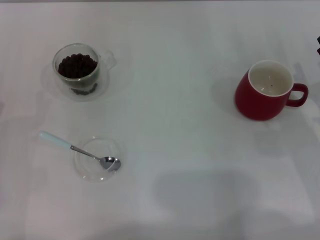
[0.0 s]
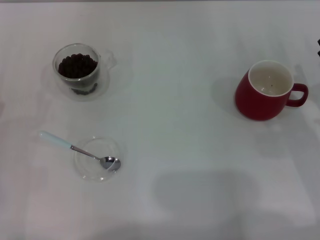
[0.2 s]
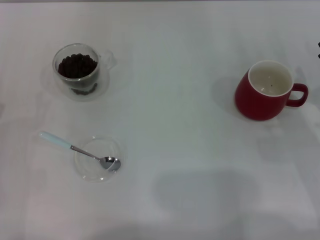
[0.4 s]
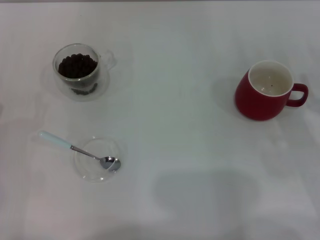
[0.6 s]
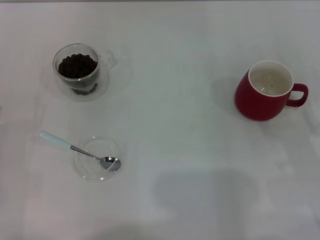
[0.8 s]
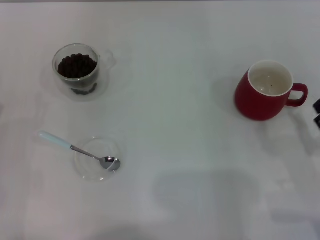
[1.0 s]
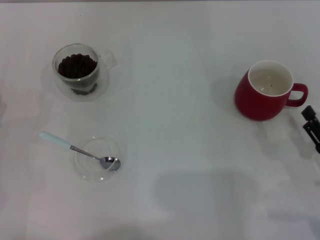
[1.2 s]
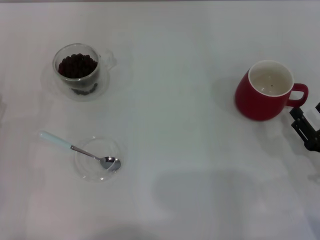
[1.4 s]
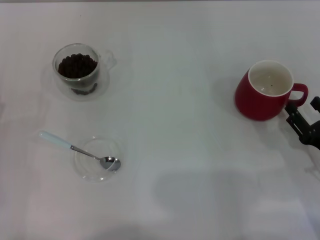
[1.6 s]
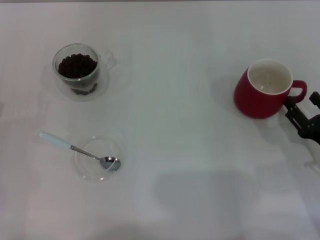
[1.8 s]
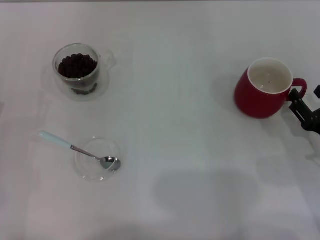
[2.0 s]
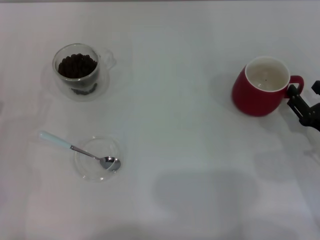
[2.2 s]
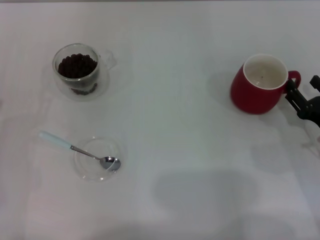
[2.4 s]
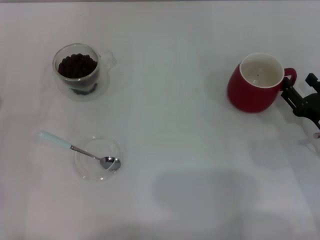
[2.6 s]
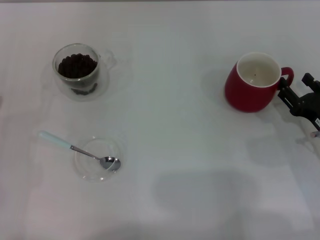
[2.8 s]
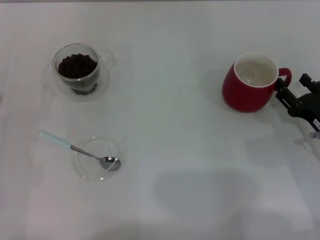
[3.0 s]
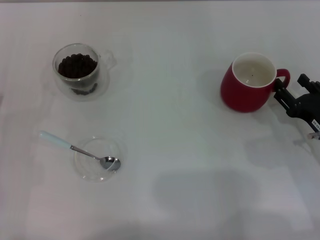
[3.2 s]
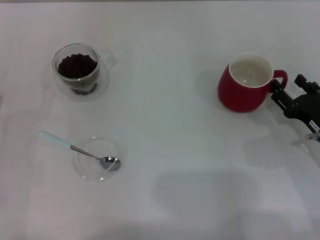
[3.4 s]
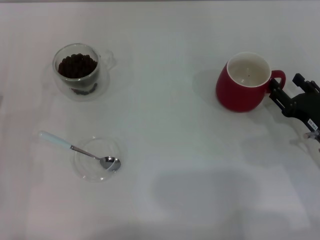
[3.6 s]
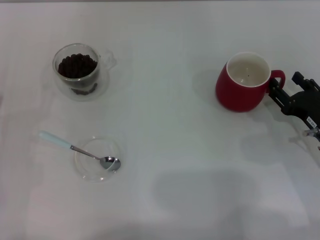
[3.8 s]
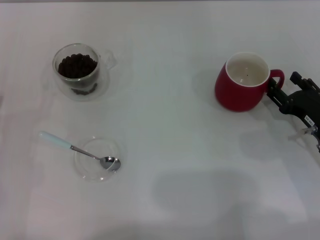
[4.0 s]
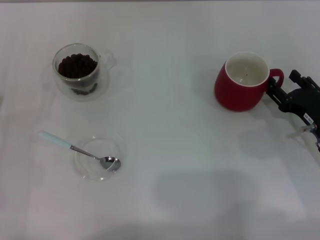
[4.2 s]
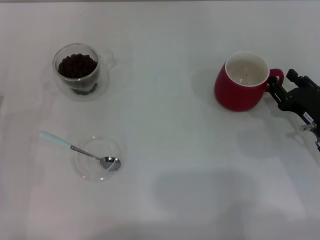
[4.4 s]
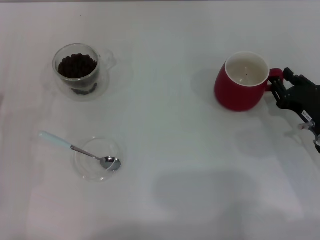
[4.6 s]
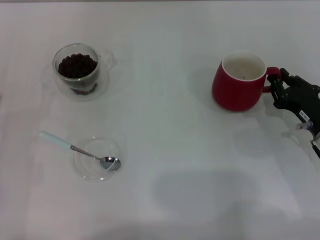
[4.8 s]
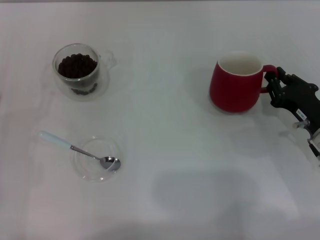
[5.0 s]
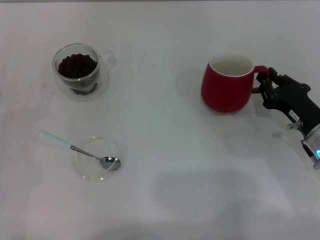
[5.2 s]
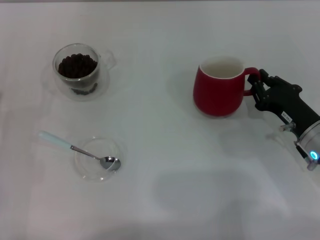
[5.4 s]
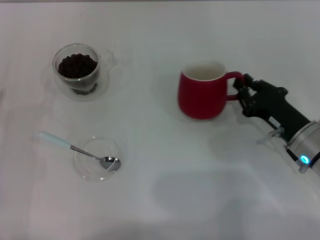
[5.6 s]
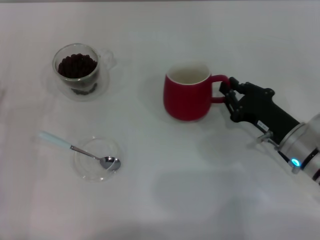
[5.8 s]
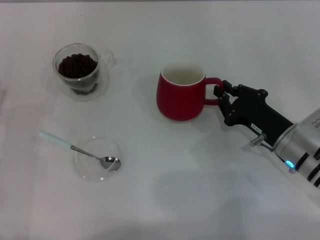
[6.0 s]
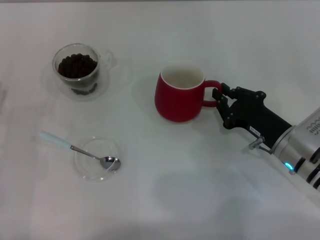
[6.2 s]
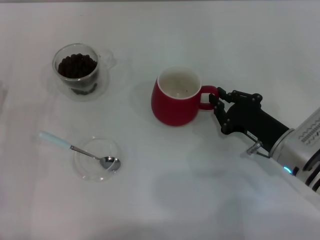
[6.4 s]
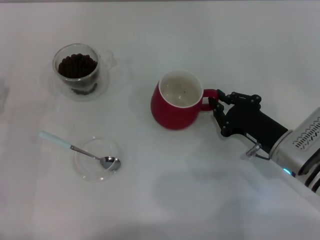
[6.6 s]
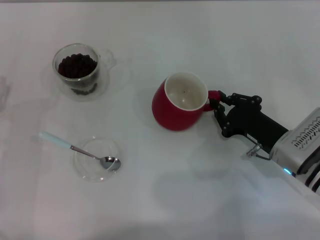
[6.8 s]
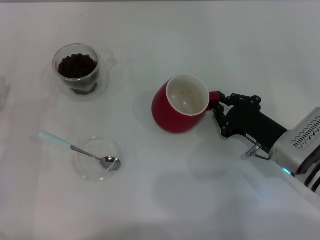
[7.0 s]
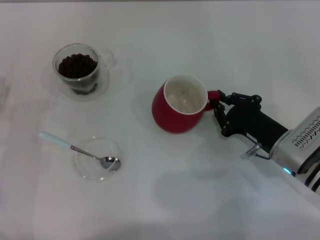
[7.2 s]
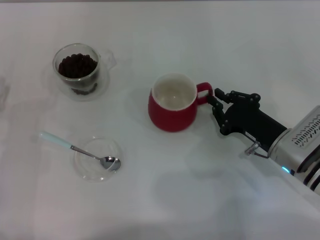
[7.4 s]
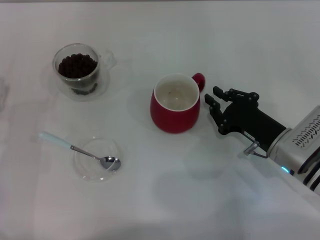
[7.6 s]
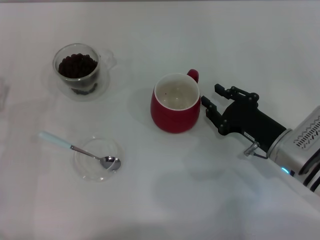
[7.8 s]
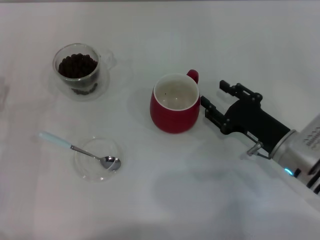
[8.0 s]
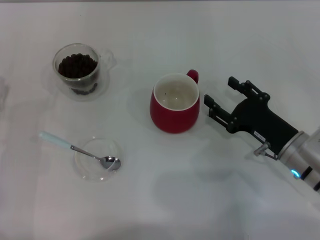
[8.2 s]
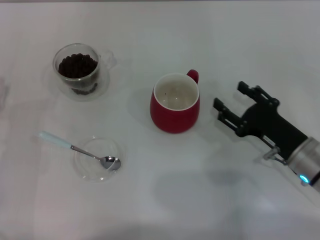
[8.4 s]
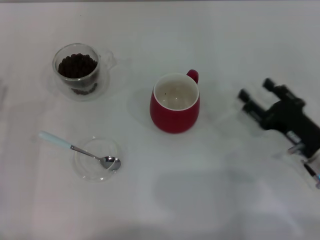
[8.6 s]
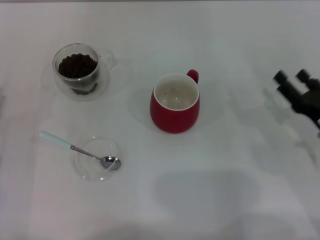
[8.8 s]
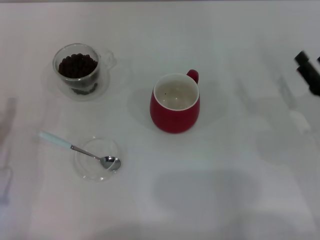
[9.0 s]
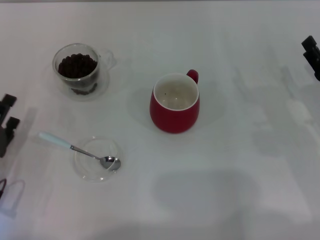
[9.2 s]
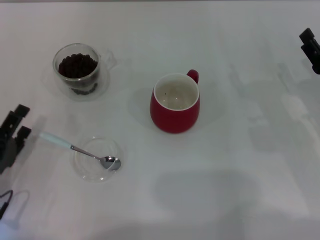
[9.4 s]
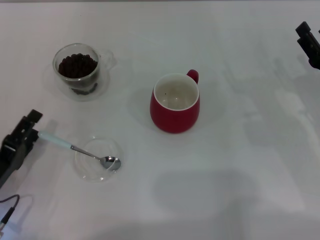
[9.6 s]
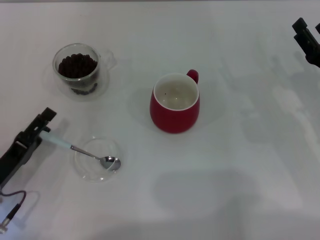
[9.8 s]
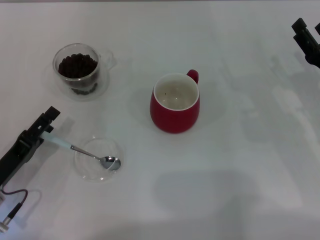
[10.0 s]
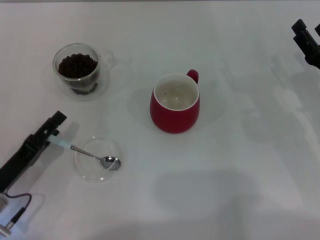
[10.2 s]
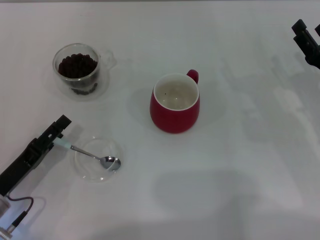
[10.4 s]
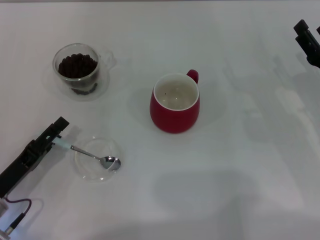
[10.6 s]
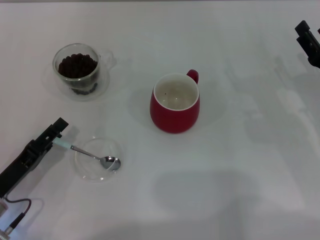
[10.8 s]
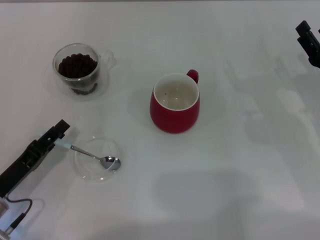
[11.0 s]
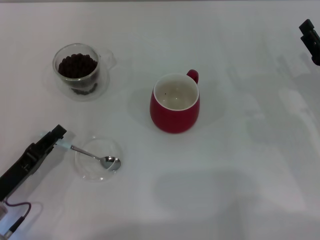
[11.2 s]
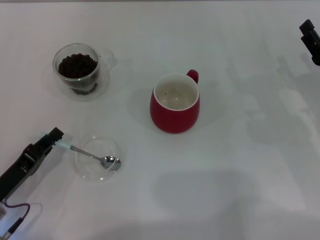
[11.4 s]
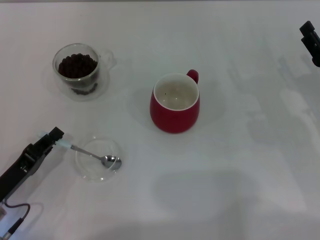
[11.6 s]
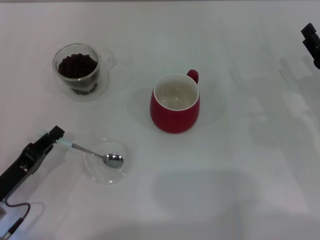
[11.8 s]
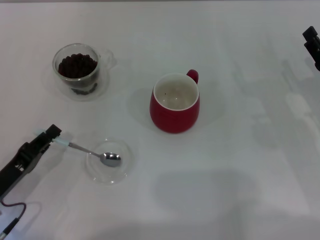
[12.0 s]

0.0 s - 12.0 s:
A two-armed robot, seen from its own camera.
Task of the whole recording: Use a blue spoon to take out the coffee beans from the glass and pour them into the red cup.
Step, 0.0 s - 8.2 s: Move the cup to the center of view with the left gripper.
0.0 s - 1.6 s: The right gripper is displaced backward by roughly 5 cm.
1.6 s - 3.0 s: The right gripper goes approximately 5 cm forward.
3.0 s - 4.4 s: The grippers stay close to where they were, moving slightly.
4.4 s - 6.0 s: The right gripper is displaced to the left by about 5 cm, and closes its fingers.
6.0 s - 7.6 s: There are only small adjustments of the grippers.
7.6 s - 9.0 s: The right gripper moves to the right, roughly 10 cm, and opens.
10.4 s - 12.0 s: The left gripper closes its fingers.

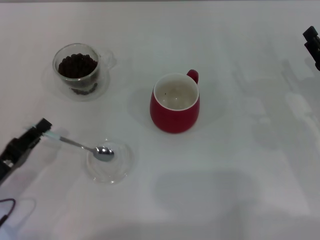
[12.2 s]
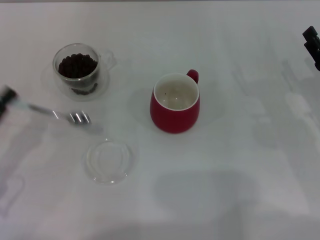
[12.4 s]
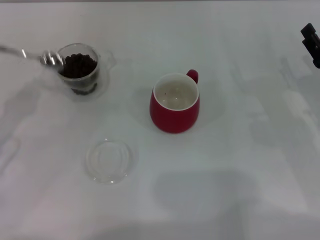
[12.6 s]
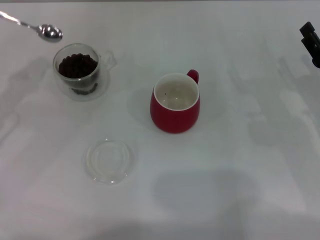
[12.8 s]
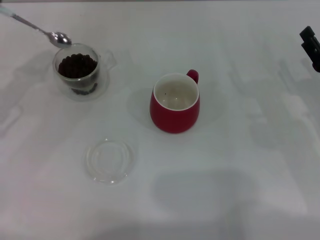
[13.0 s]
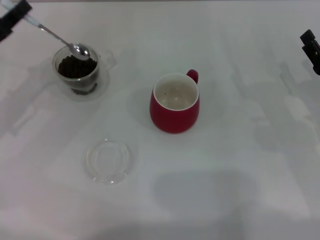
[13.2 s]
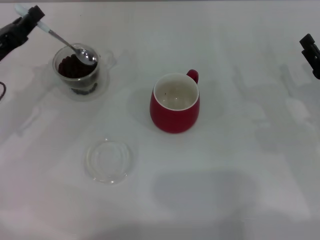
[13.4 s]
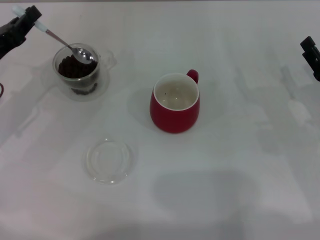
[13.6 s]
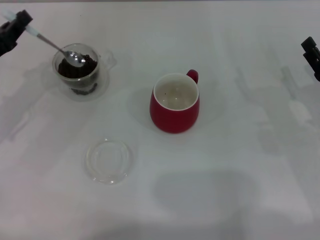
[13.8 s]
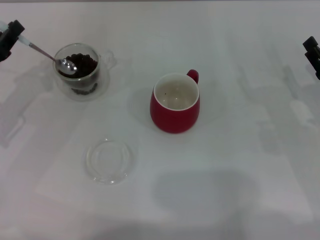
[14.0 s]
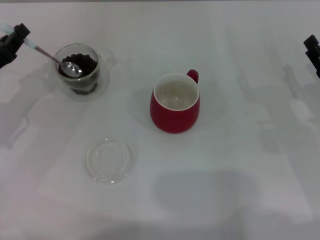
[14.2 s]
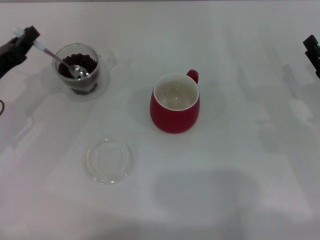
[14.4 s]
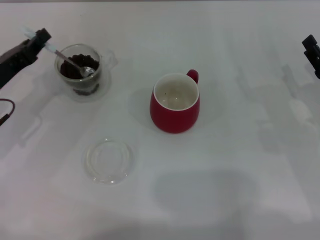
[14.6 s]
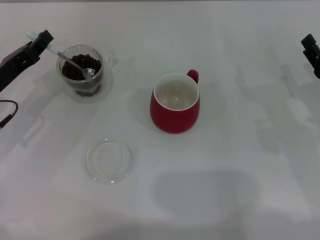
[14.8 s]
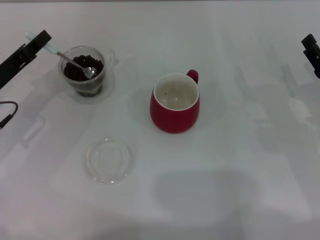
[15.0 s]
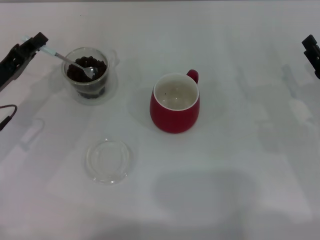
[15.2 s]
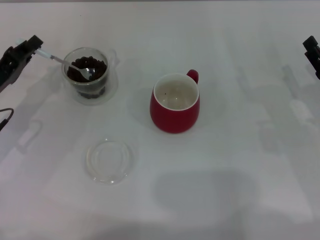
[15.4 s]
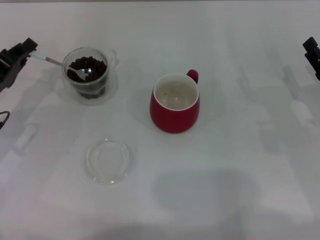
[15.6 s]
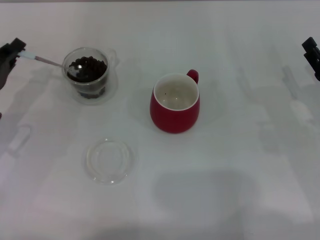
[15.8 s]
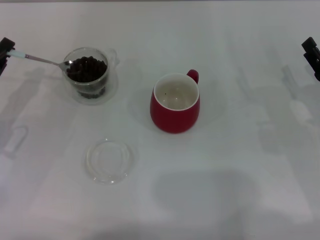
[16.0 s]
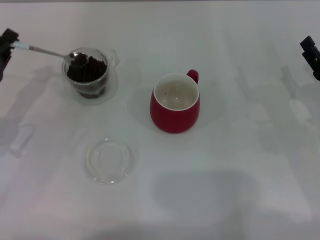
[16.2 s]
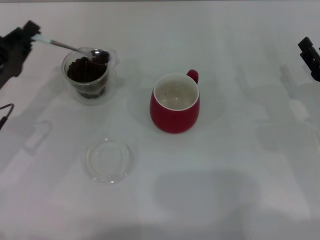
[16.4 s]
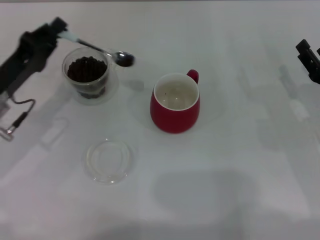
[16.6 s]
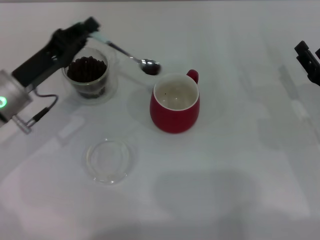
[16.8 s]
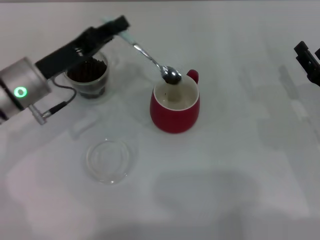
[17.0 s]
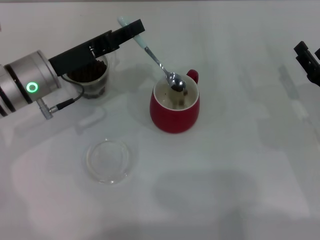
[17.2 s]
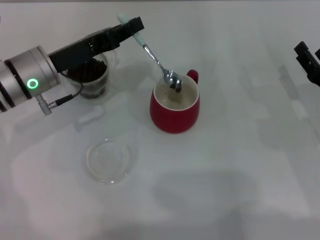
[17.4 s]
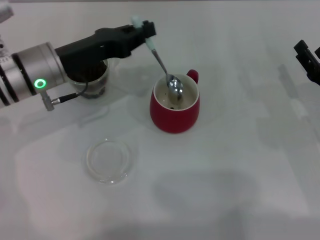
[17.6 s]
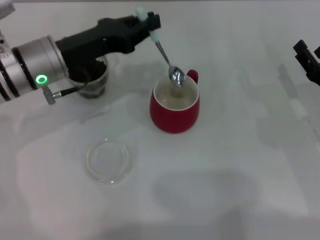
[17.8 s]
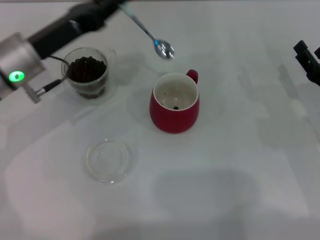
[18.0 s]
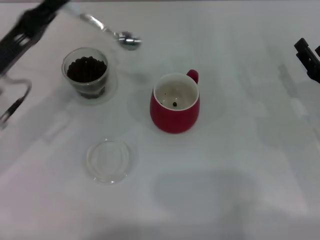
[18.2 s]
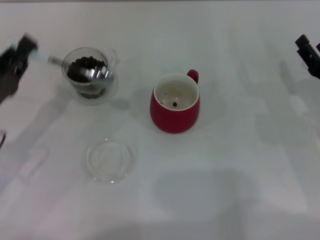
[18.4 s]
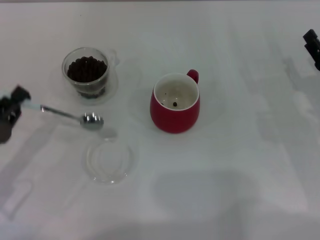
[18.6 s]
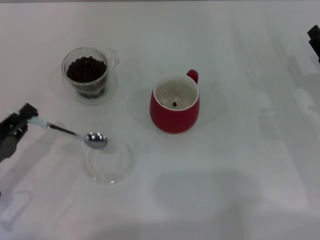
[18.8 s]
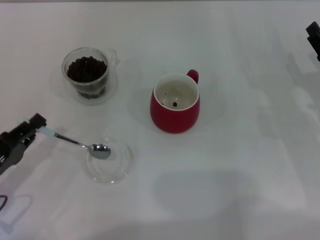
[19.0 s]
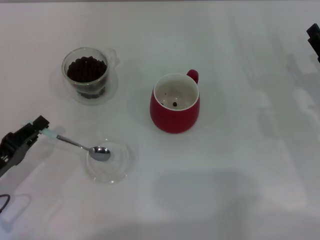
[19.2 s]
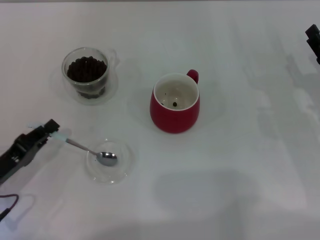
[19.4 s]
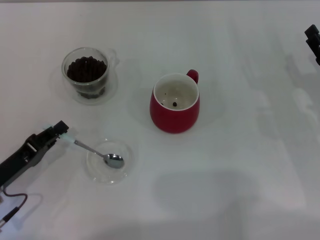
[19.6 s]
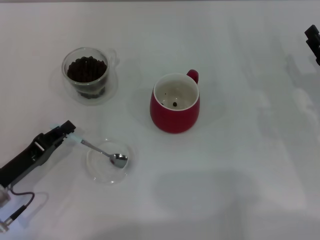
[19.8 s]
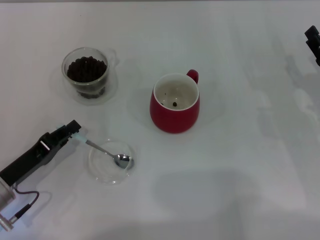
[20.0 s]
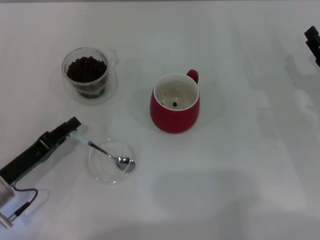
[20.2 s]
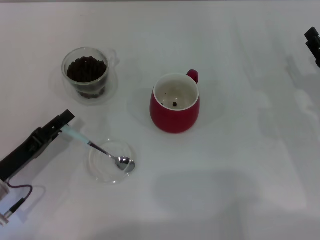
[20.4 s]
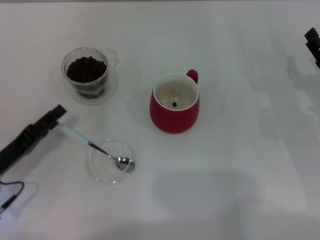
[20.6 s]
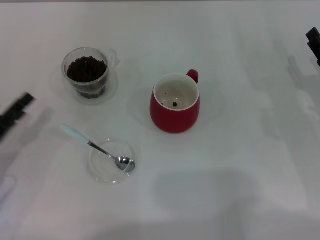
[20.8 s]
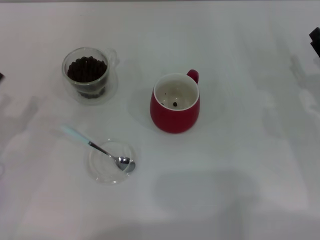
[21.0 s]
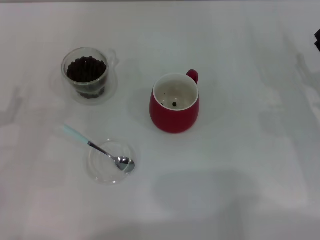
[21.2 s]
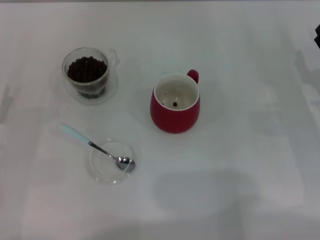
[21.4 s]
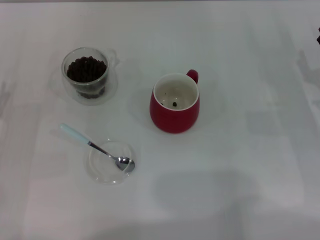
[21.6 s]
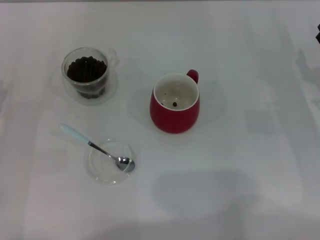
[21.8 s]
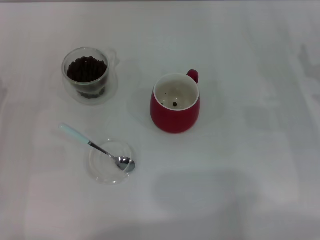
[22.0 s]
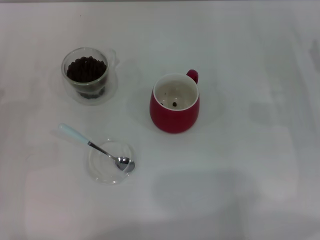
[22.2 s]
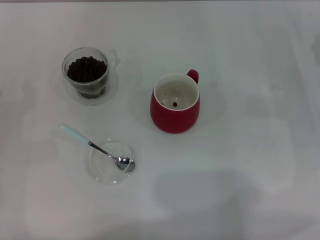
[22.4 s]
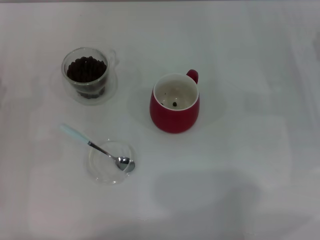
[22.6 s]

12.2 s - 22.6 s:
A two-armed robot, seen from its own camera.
Task of the whole recording: Use a blue spoon to take out the coffee beans from the glass and pour them into the red cup.
12.2 s - 13.6 s: The left gripper travels forward and upward by some 15 cm.
15.2 s - 16.6 s: The grippers move only a little.
16.6 s - 18.2 s: The left gripper reaches roughly 10 cm to the right, then returns.
18.2 s - 19.6 s: The left gripper shifts roughly 15 cm backward and downward.
19.6 s - 21.2 s: The left gripper ends up some 5 cm from where it was, and opens its fingers.
